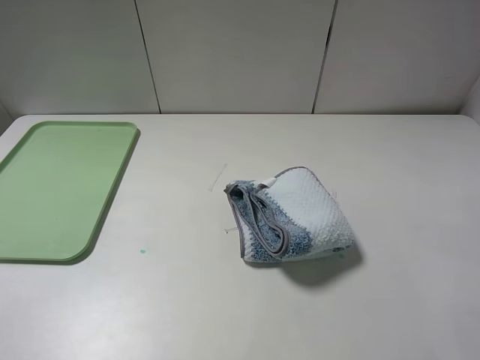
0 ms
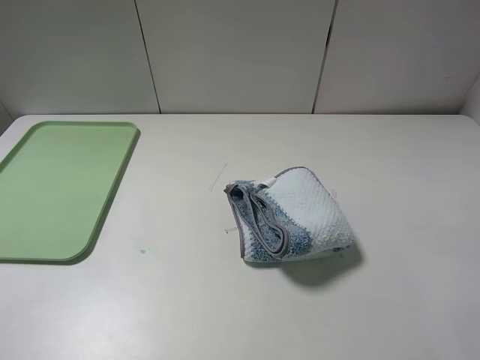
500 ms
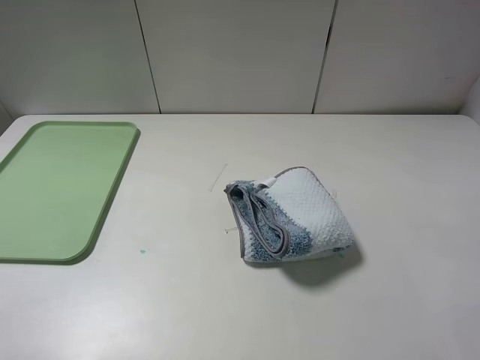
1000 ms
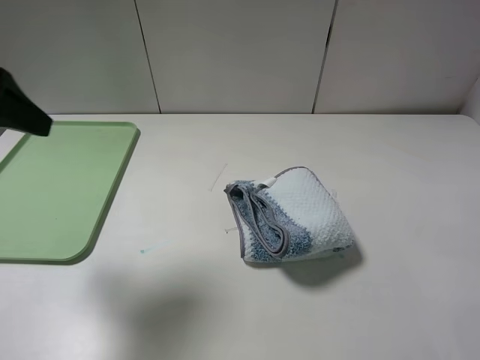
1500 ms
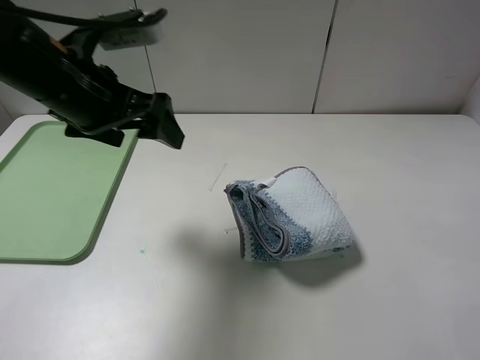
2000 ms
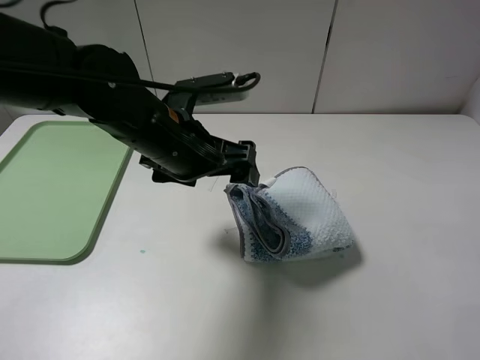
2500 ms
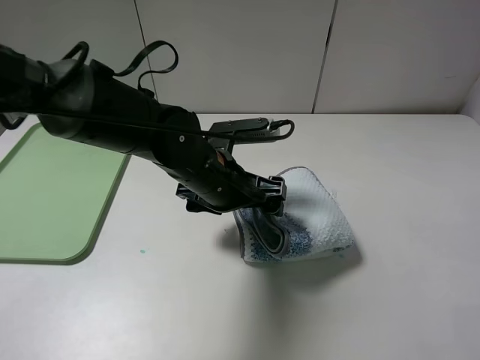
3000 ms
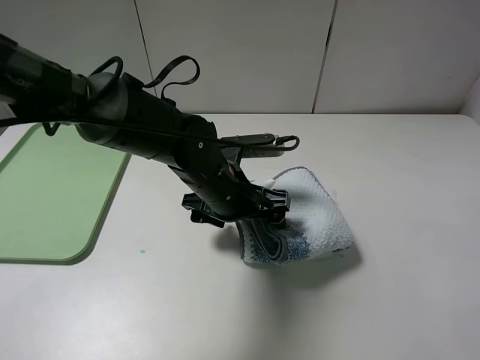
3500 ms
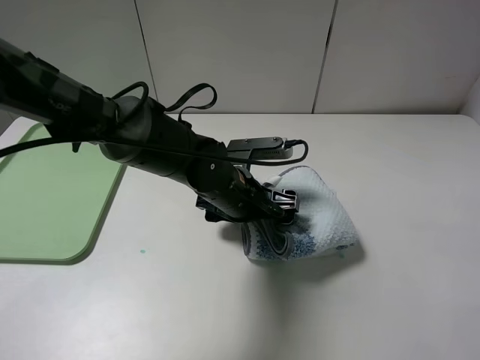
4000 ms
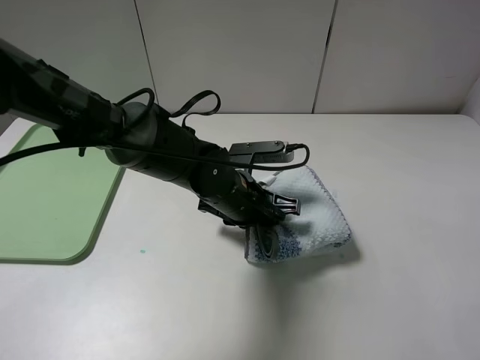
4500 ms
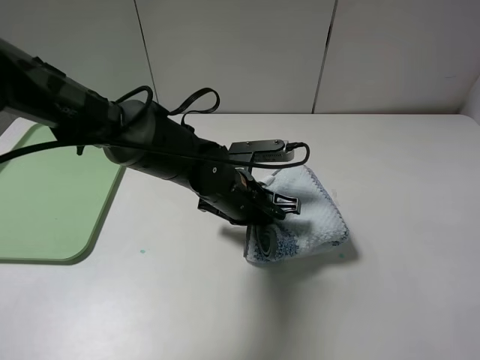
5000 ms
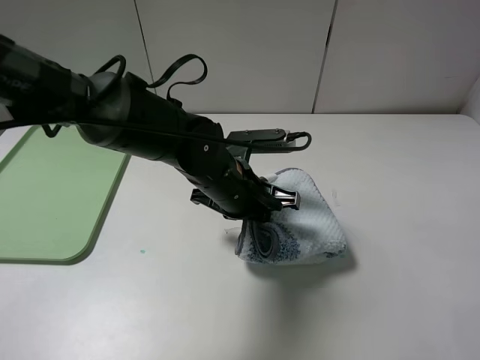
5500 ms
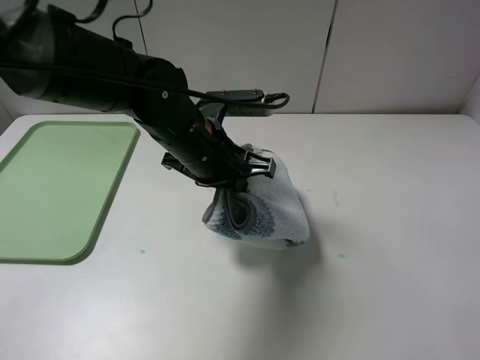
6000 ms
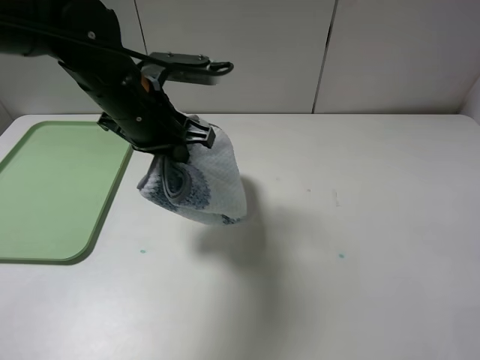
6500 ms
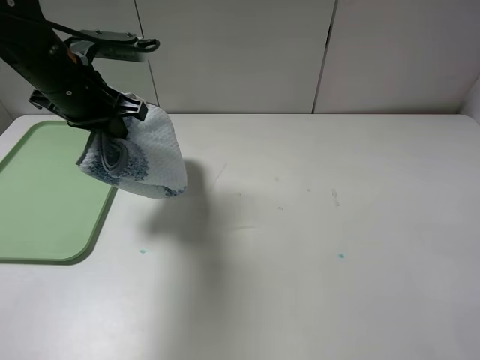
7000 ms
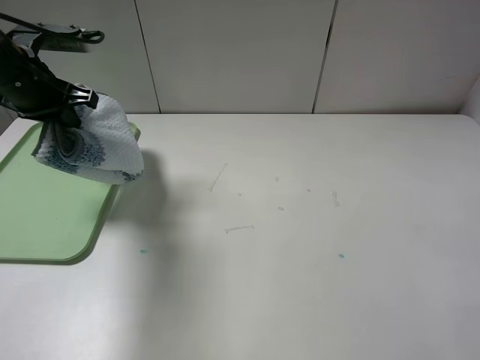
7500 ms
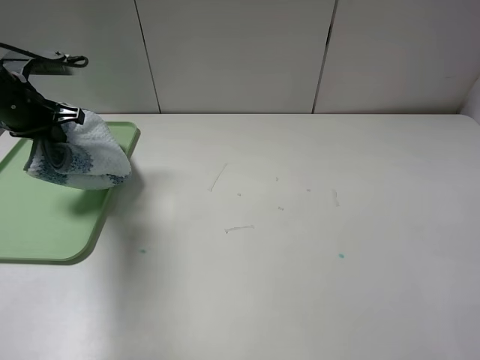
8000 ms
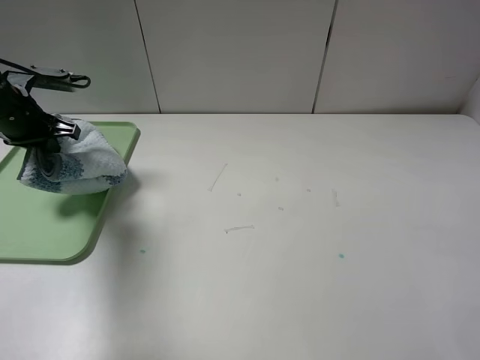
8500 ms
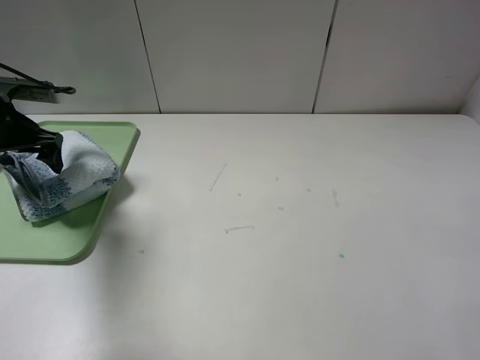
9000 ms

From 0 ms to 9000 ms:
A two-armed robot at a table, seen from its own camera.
Step, from 0 ms to 4500 ms: Grasp the blue white towel with the left gripper.
From 0 ms to 2000 ms: The left gripper heads forward and to the right, covering some 30 cm.
From 2000 ms to 4500 ms: The left gripper travels downward and to the right by about 25 cm, and closes up.
From 4500 ms to 7000 ms: The left gripper is displaced to the left and upward by roughly 25 cm.
From 7000 ms to 9000 ms: The left gripper heads to the left, covering roughly 15 cm, and opens its fingers.

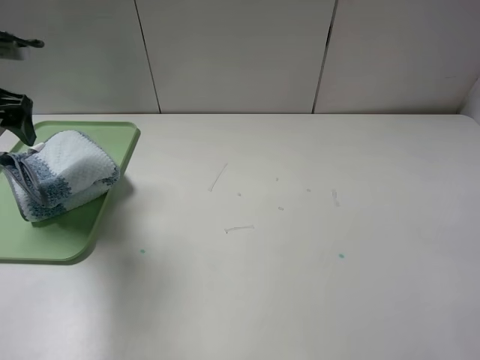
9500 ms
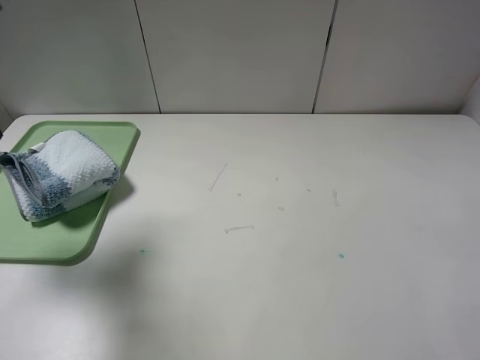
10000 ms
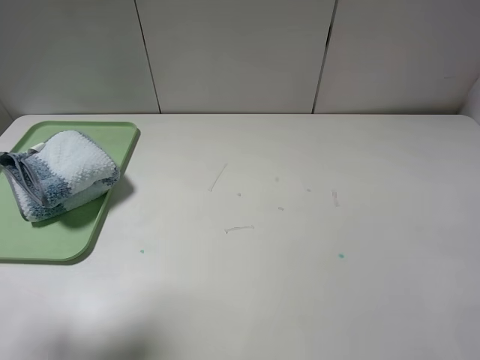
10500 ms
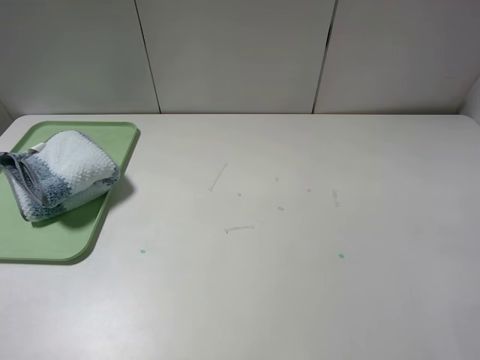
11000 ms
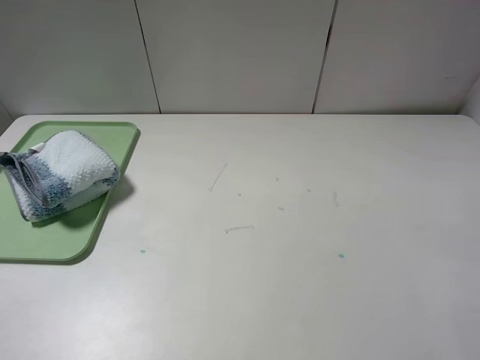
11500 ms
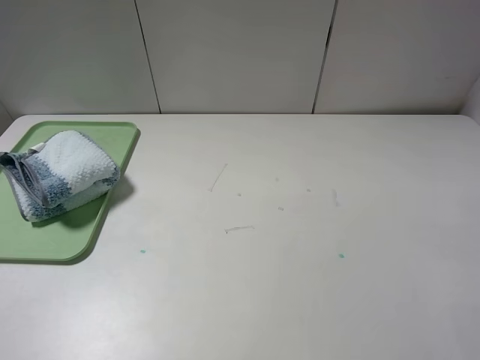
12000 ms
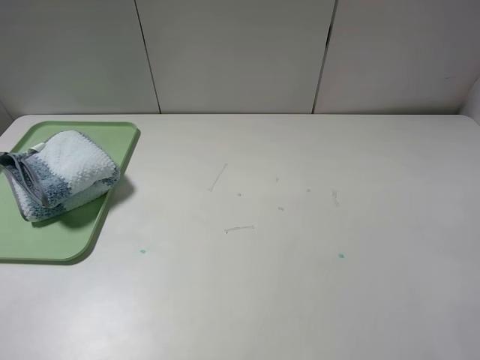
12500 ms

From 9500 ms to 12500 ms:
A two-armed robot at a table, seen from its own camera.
From 9500 ms to 11000 ms: The left gripper goes some 30 cm backward.
